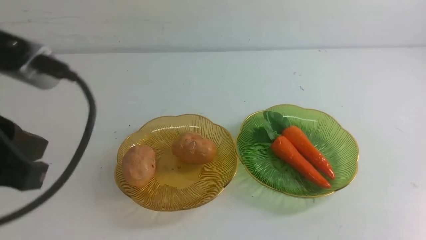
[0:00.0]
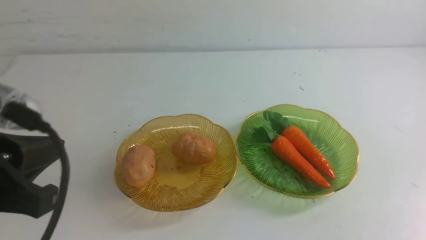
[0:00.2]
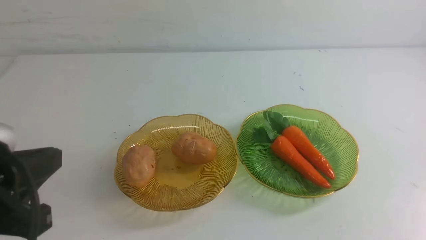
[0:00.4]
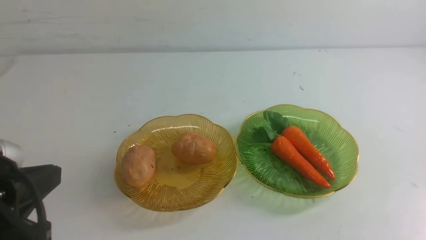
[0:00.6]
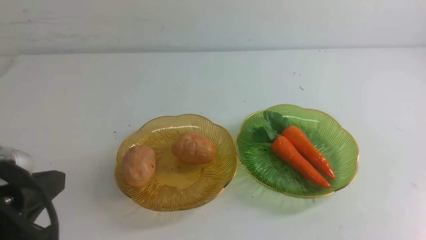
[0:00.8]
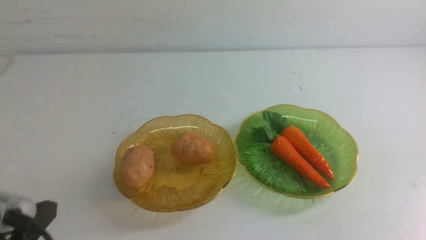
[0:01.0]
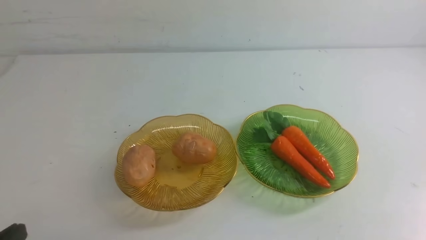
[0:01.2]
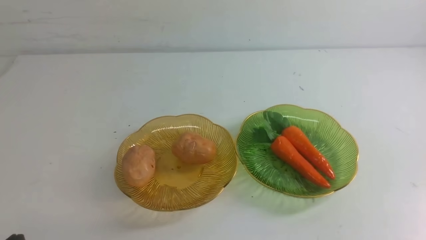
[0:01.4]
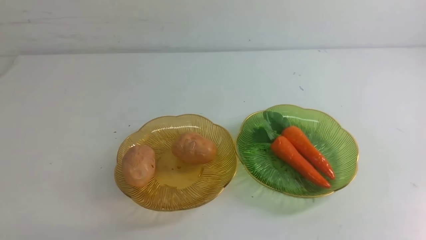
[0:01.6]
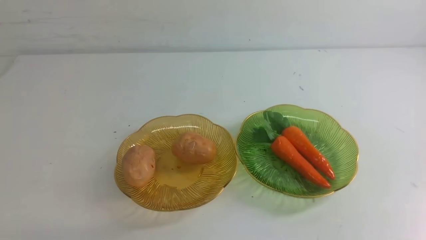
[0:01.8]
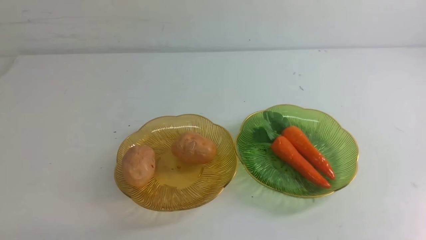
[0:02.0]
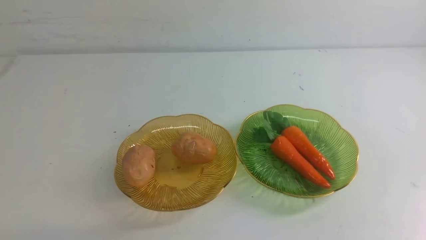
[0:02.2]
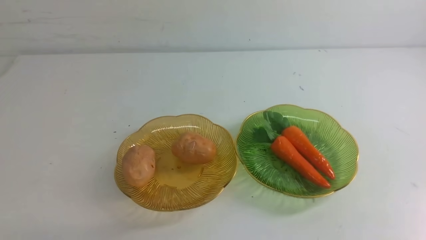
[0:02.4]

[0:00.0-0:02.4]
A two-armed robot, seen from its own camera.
0:00.0 to 0:01.2: The left gripper shifts about 15 cm downward.
0:01.2 to 0:02.4: Neither gripper changes place.

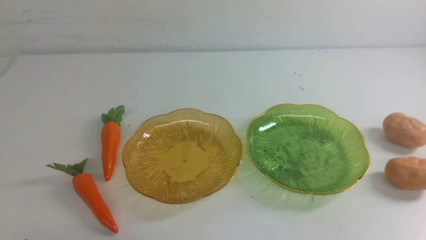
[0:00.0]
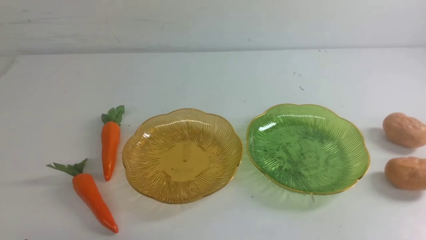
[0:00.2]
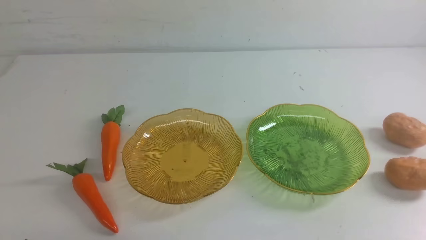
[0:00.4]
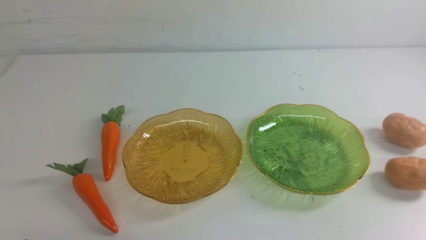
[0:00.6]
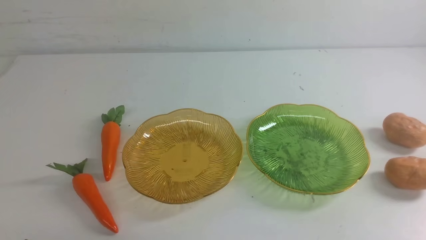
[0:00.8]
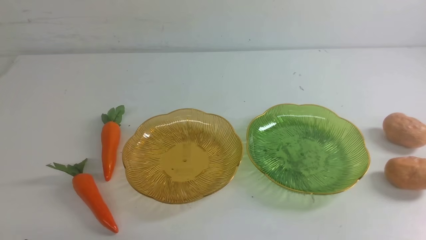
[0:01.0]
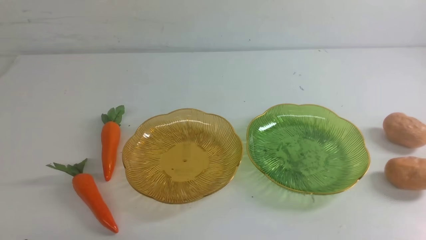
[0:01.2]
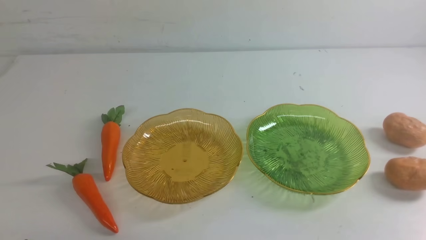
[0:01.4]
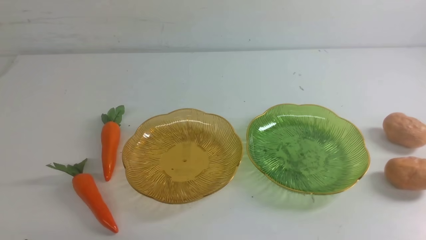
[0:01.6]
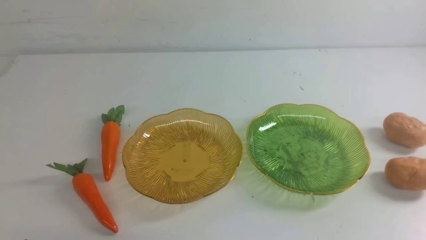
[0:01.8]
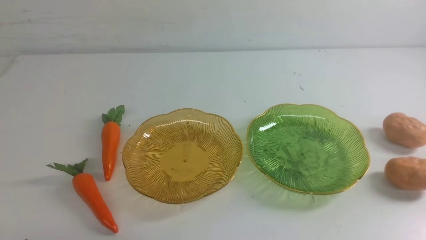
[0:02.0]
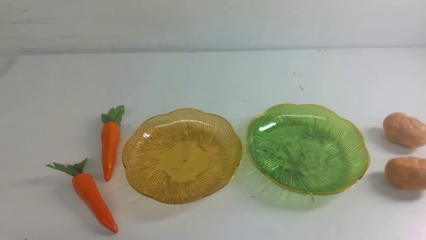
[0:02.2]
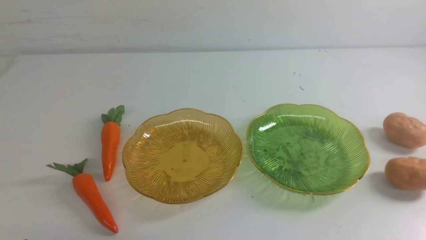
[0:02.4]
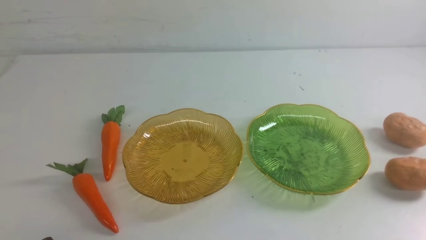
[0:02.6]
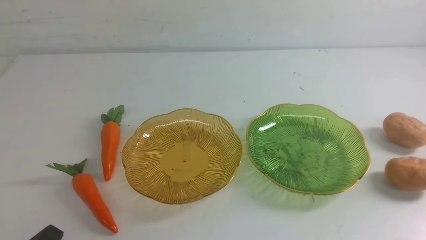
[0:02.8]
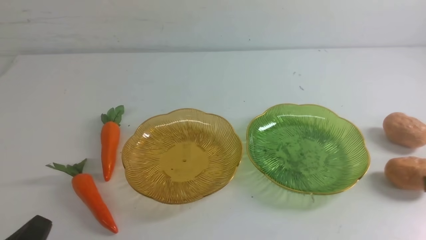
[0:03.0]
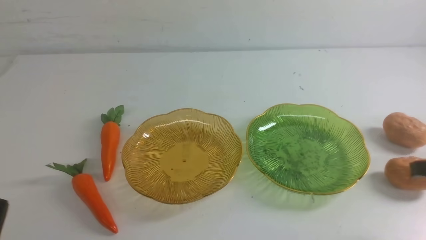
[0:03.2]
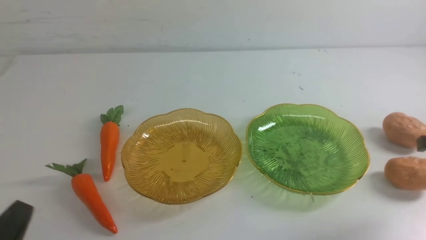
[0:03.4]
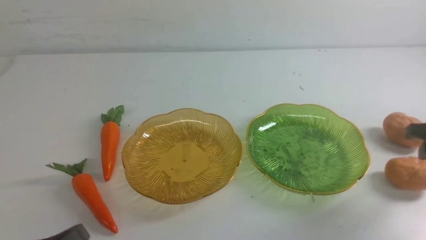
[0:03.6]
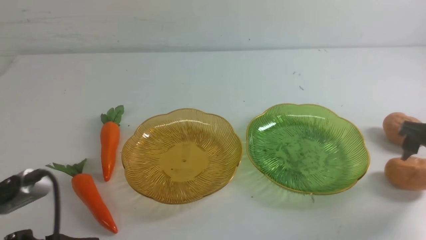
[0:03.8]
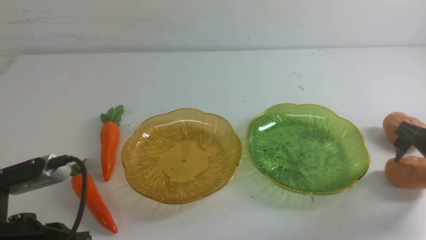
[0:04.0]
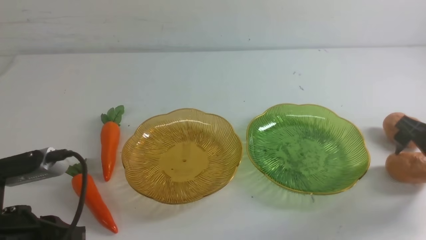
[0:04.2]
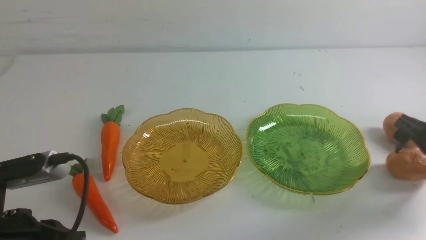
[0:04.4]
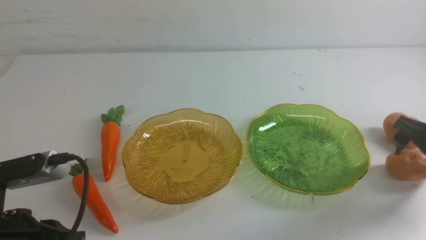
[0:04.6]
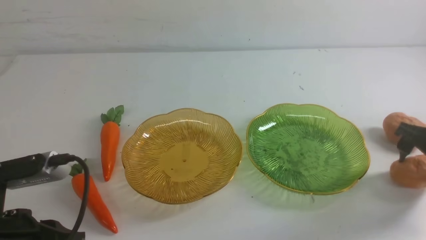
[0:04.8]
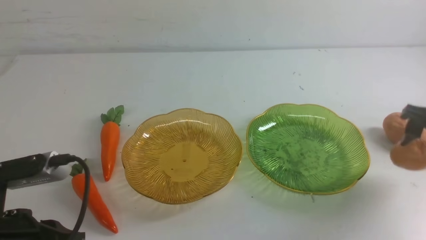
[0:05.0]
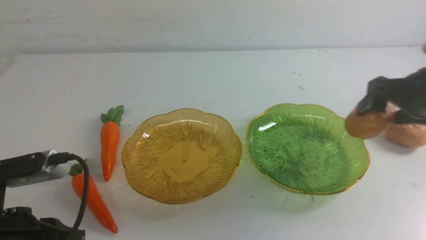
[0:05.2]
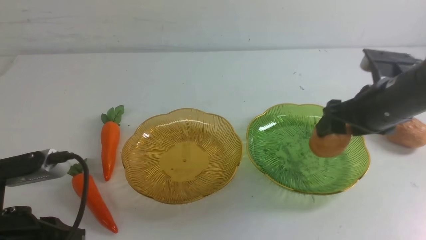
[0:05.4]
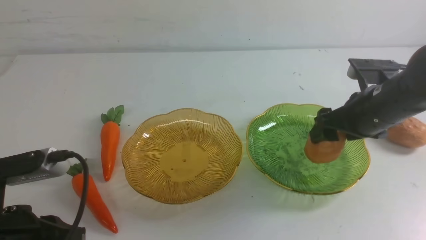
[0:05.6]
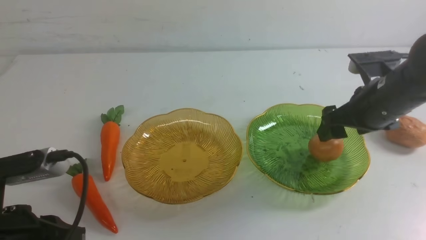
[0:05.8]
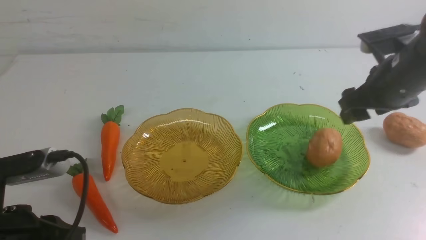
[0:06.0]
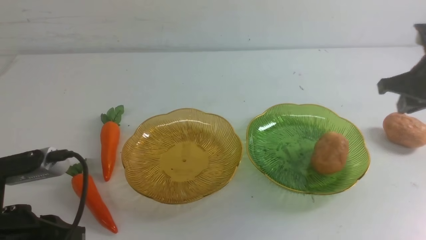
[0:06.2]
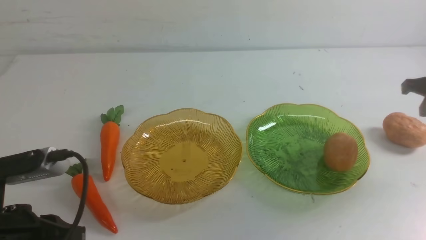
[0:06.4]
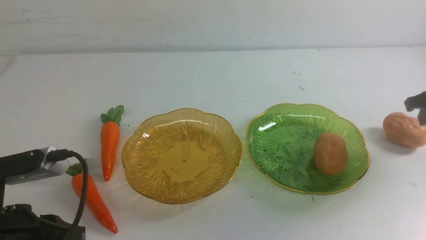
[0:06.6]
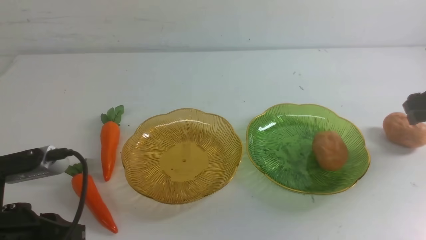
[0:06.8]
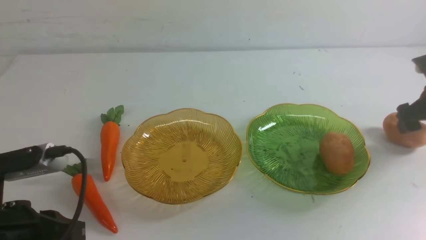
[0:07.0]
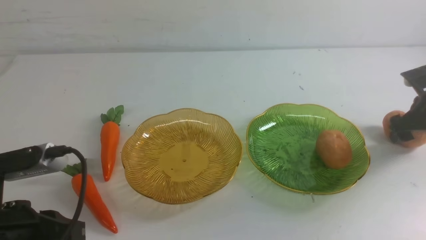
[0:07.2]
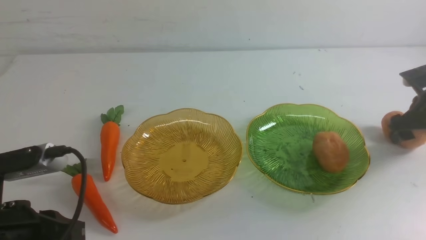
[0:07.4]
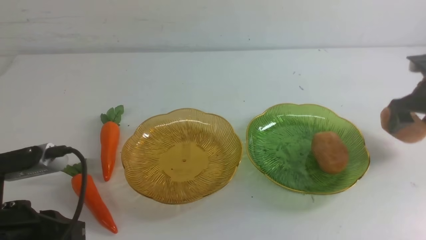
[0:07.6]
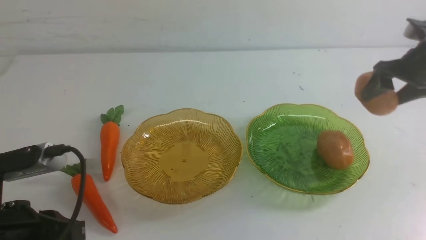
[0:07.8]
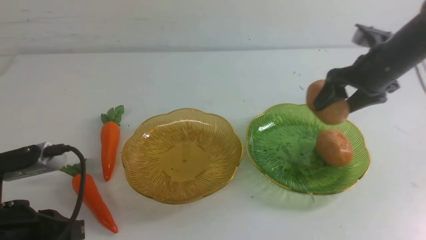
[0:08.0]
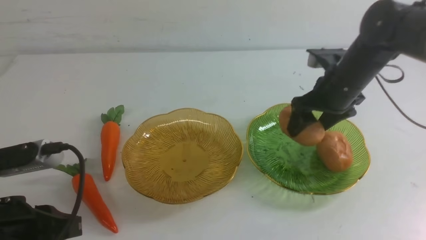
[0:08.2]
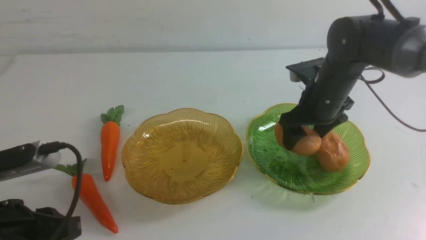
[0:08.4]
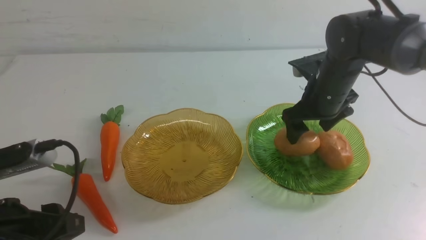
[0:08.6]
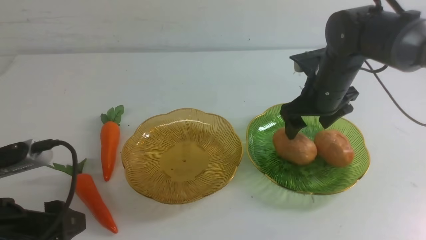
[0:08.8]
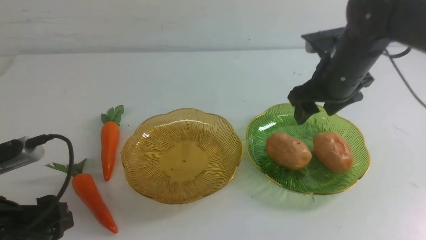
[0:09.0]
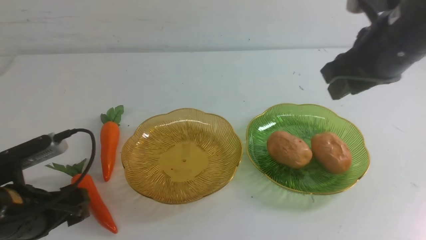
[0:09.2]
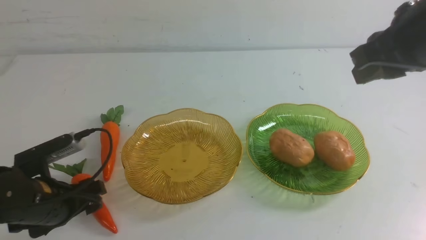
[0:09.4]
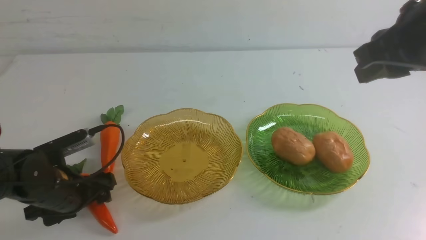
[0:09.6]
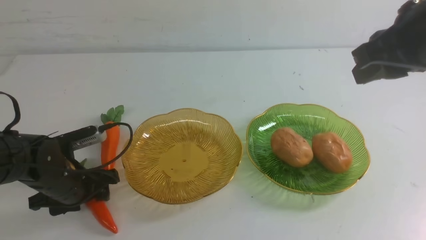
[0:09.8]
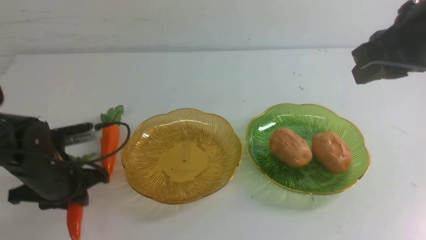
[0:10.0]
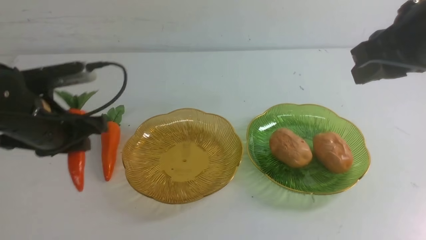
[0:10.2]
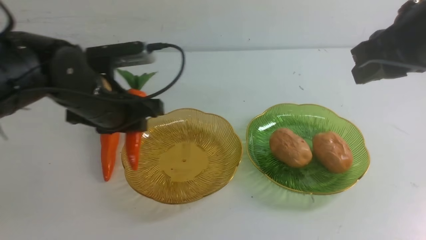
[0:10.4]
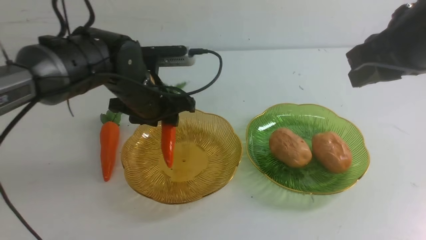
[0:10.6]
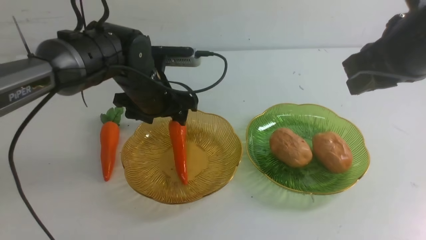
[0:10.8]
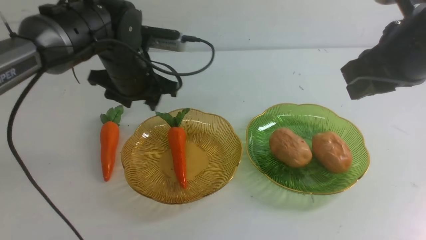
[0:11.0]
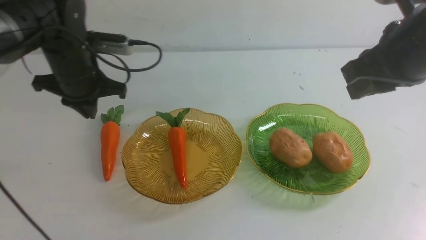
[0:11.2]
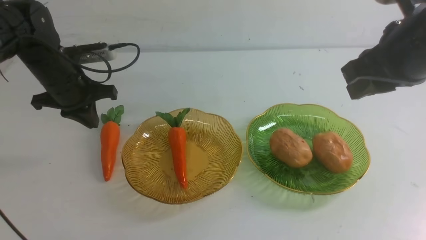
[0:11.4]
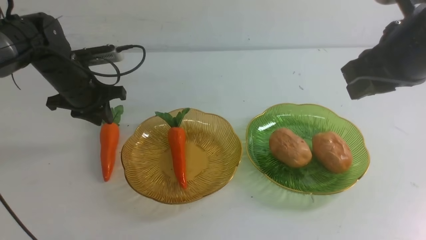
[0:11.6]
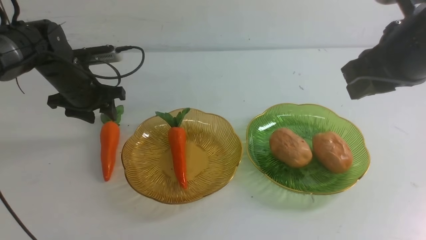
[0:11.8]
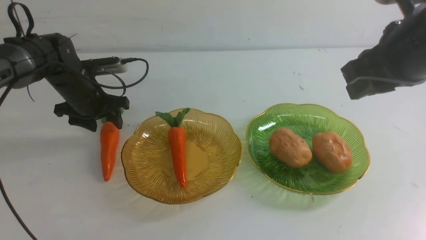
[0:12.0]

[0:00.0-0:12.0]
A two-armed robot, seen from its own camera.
Step, 0:00.0 to 0:08.6: Grab a potato with your right arm and put it on the right plate.
0:03.0 to 0:04.4: The right gripper heads forward and downward, covering some 20 cm, and opens its fingers; the left gripper is displaced forward and upward by about 10 cm.
0:04.4 to 0:06.0: The right gripper shifts about 5 cm upward, moves approximately 10 cm to the left and comes back, and closes up.
0:06.0 to 0:07.6: The right gripper shifts about 20 cm to the left, and opens up.
0:07.6 to 0:09.0: The left gripper moves forward and downward, roughly 15 cm, and opens; the right gripper shifts roughly 20 cm upward and backward, and closes up.
0:09.0 to 0:10.4: The left gripper travels forward and upward by roughly 15 cm, and closes its fingers.
0:10.4 to 0:12.0: The left gripper moves roughly 10 cm downward and comes back, and opens, then closes once more.

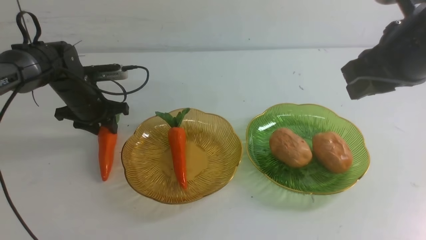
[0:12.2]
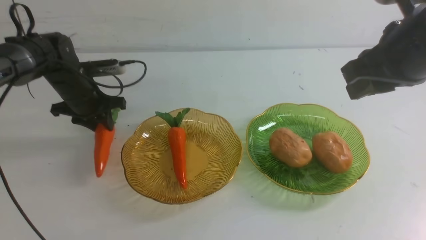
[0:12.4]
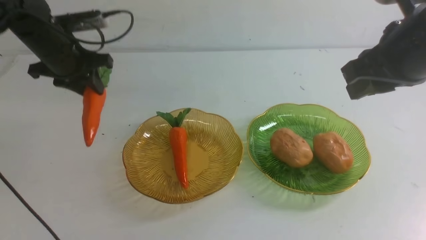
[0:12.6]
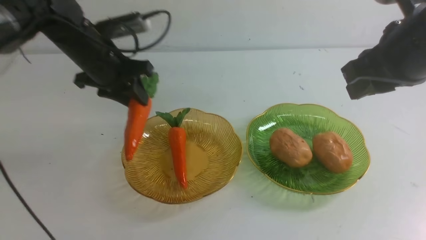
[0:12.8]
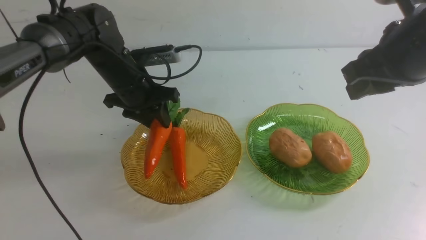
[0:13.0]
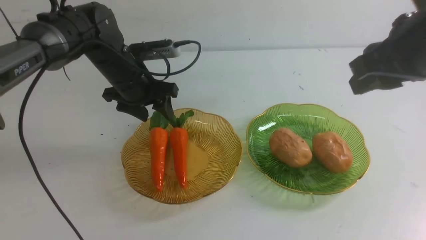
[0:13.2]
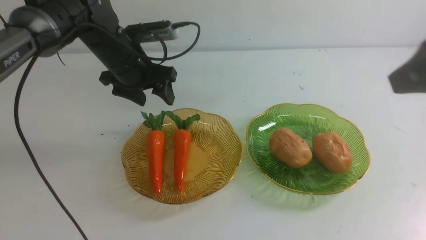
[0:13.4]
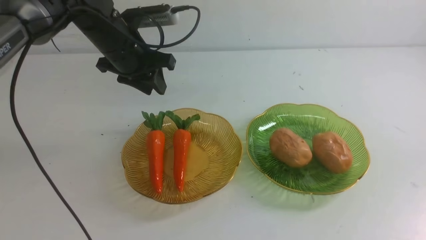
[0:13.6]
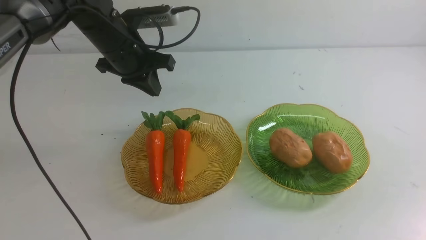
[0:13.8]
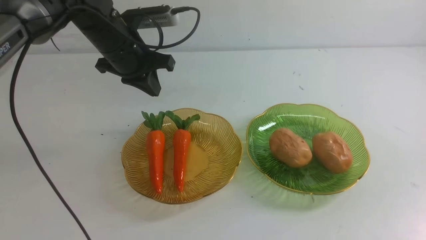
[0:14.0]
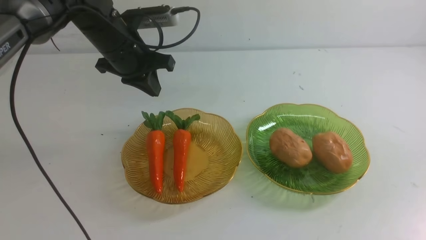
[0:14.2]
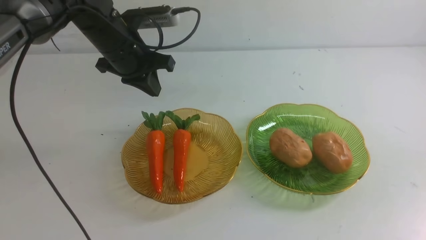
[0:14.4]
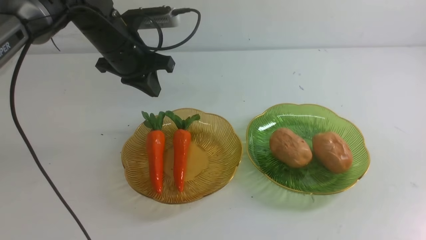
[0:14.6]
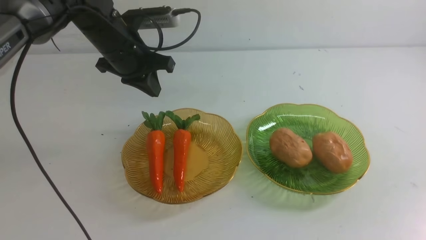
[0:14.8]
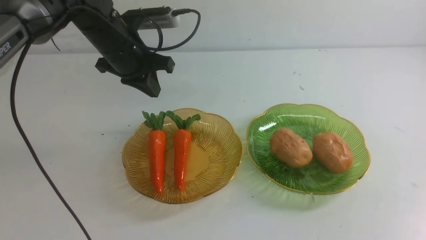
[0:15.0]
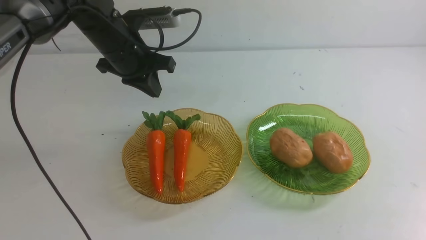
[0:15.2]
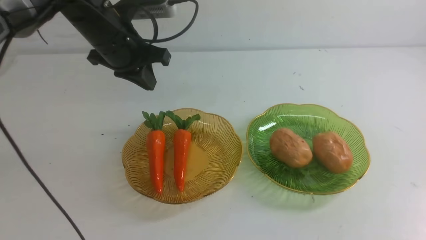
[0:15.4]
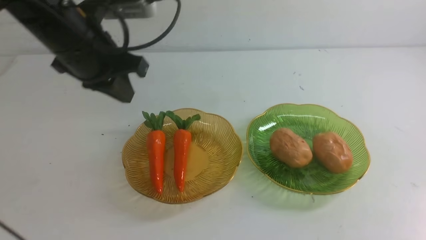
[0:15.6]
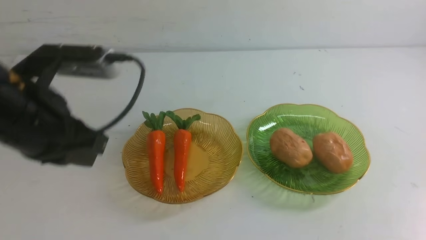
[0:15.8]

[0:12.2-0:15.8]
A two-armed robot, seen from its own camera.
0:12.2 to 0:14.0: The left gripper closes its fingers, while the right gripper travels backward and downward by about 20 cm.
0:14.0 to 0:15.8: The right gripper shifts about 10 cm downward; the left gripper shifts about 40 cm backward.
